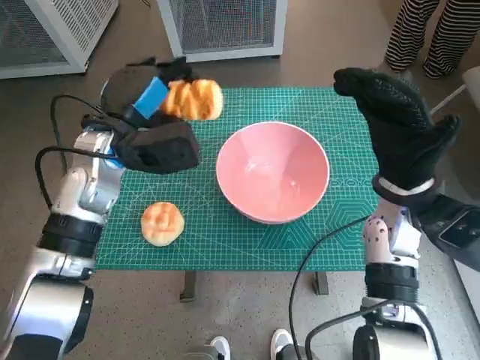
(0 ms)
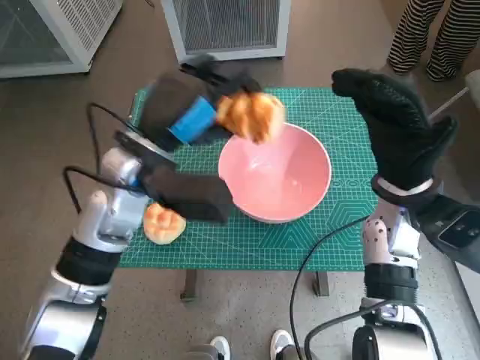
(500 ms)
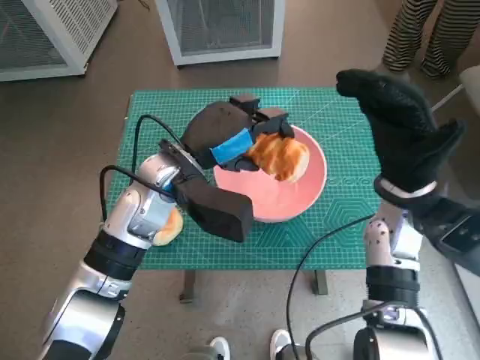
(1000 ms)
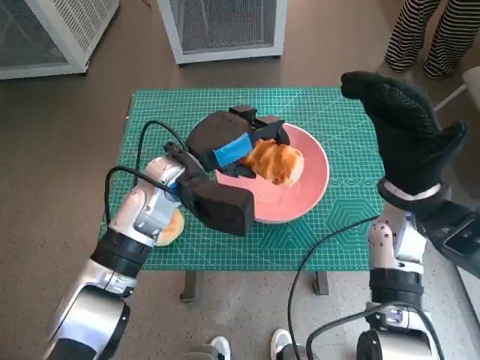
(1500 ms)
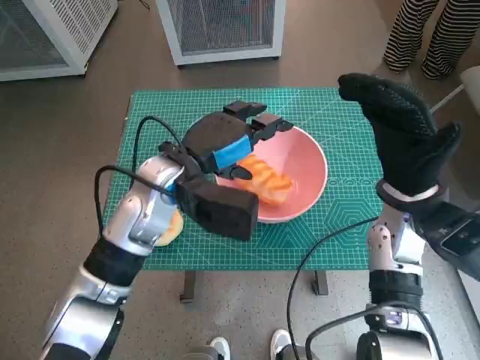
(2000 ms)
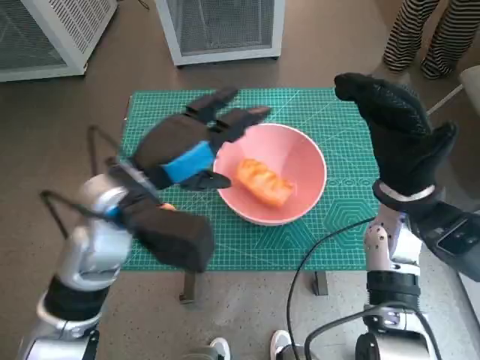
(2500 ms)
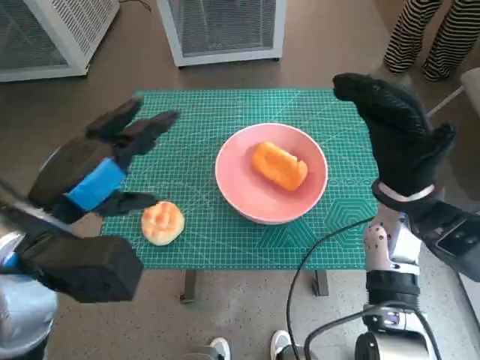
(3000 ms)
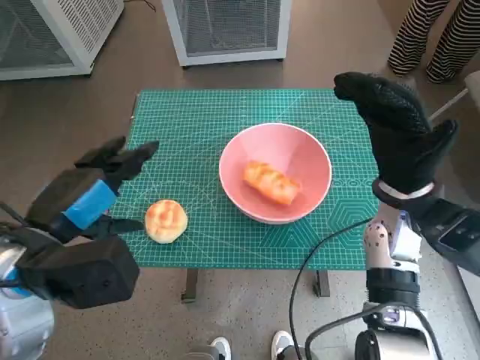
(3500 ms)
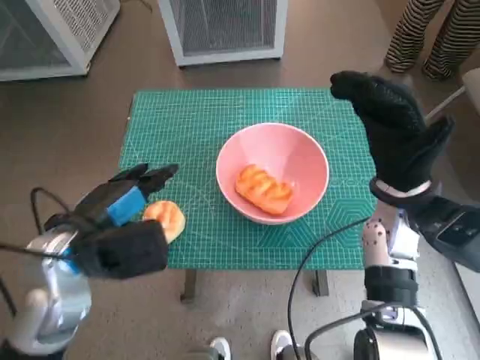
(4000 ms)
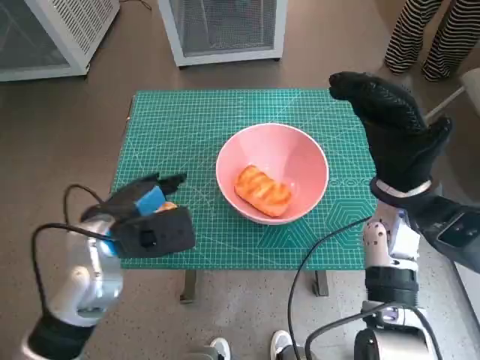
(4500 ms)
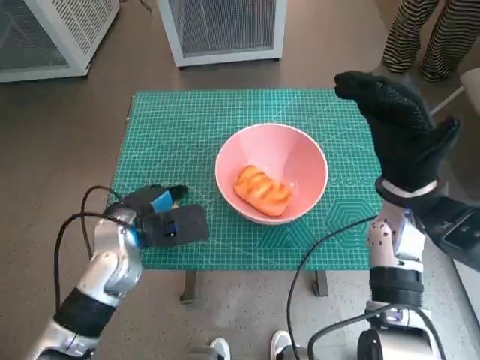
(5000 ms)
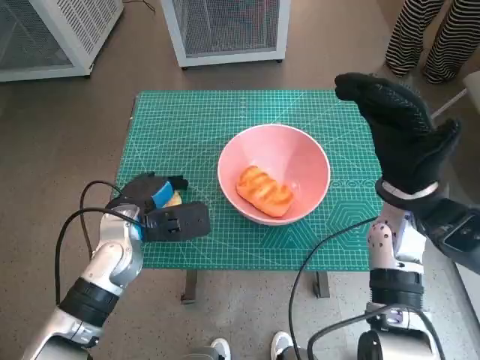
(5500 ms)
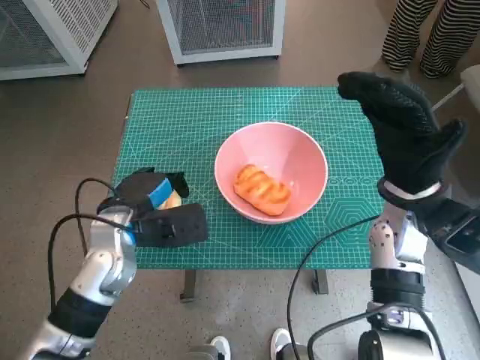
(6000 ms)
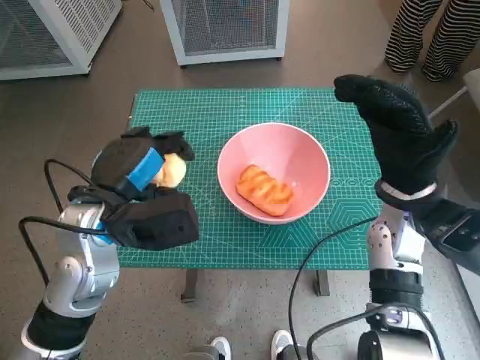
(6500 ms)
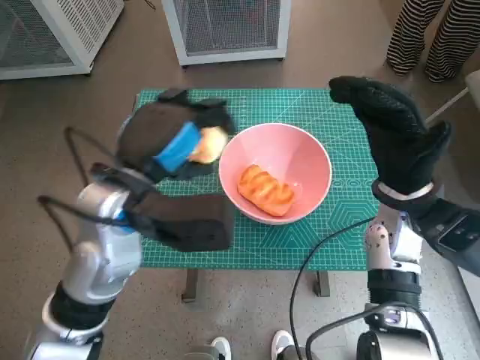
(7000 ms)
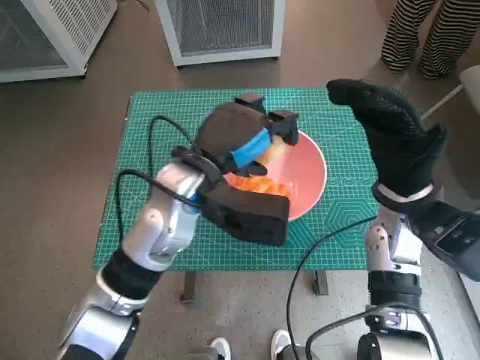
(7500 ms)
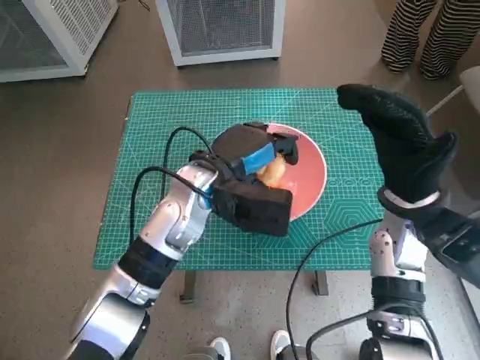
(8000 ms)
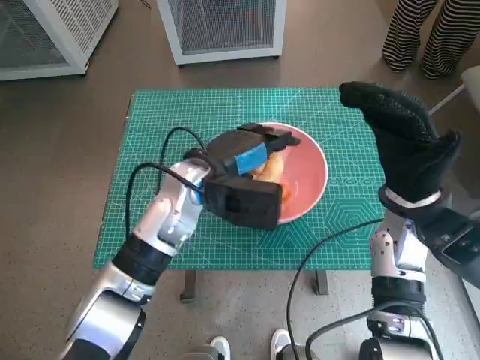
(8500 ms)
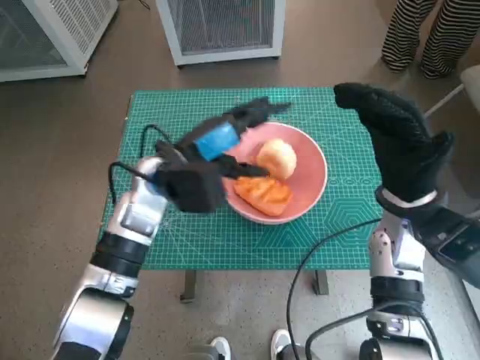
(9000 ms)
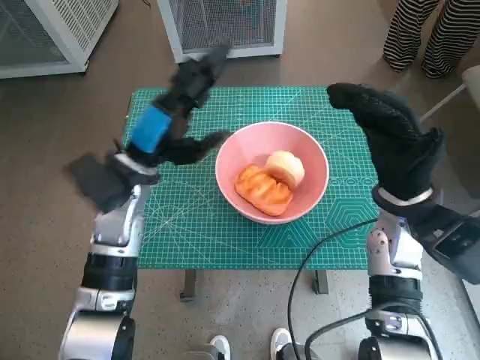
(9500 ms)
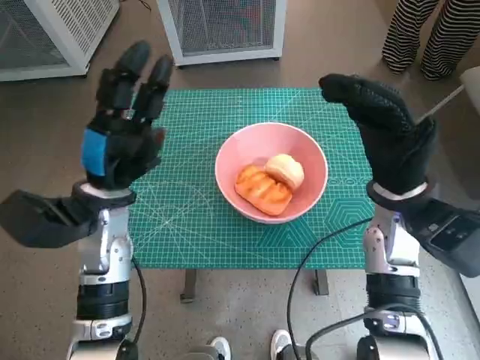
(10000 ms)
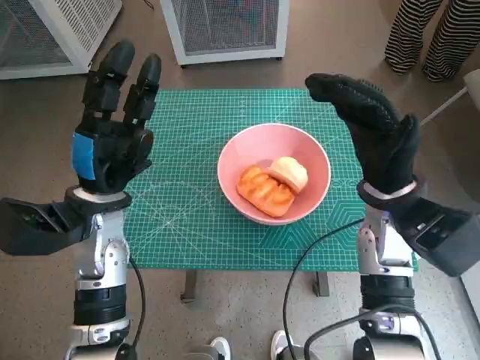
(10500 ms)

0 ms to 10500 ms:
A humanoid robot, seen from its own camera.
Task of the whole recording: Push the bowl into the center of the table and put the bread into the bowl.
Step, 2000 ms to 5000 ms: Grasp the round bread with left hand.
Step, 5500 ms to 8500 ms: Place the round bread in pink bowl with left hand.
0 ms to 2000 ms: The left hand goes some 10 cm to the right.
2000 ms to 4000 ms: The left hand is displaced to the left and backward by about 15 cm.
4000 ms to 6500 ms: The left hand moves approximately 10 cm downward and comes back.
6500 ms to 8500 ms: The left hand moves to the right and forward, approximately 10 cm.
8500 ms to 10500 ms: The left hand travels to the left by roughly 10 cm.

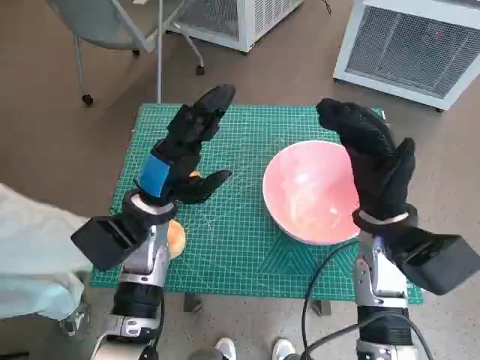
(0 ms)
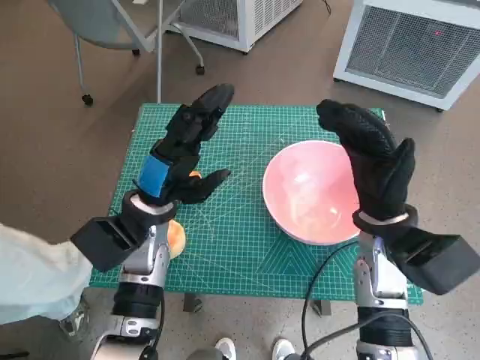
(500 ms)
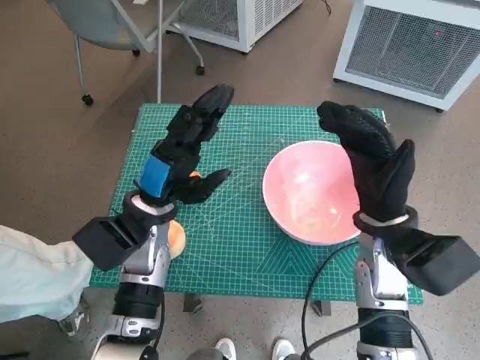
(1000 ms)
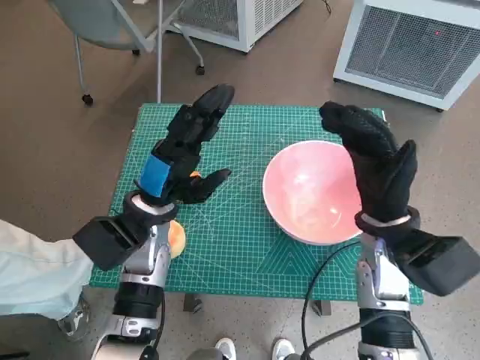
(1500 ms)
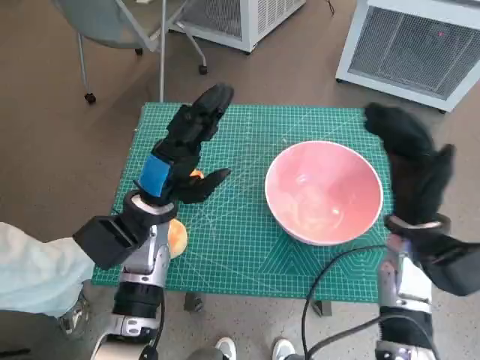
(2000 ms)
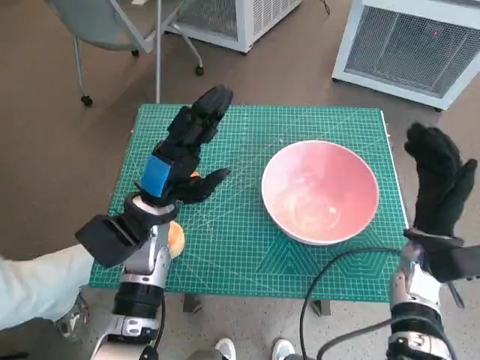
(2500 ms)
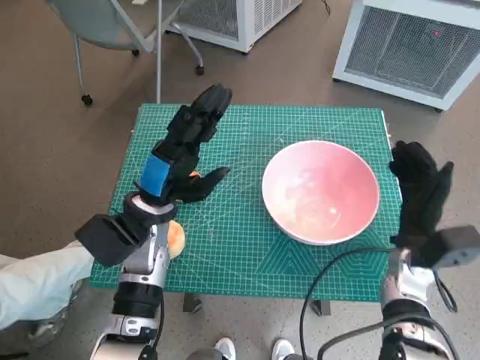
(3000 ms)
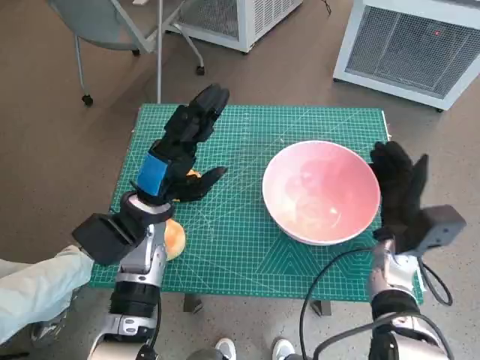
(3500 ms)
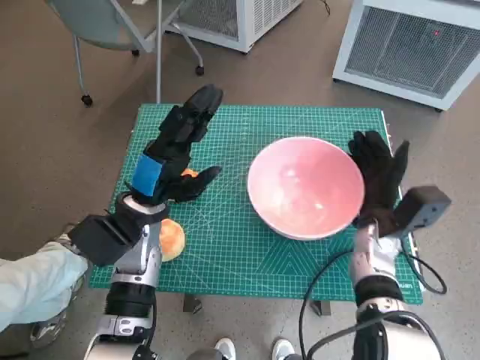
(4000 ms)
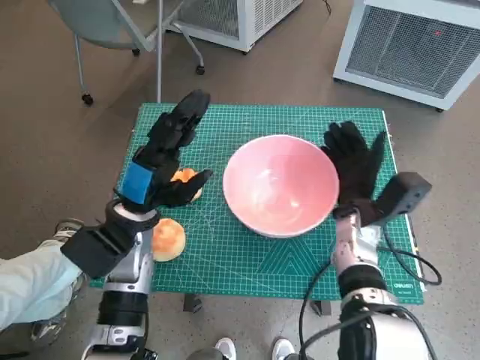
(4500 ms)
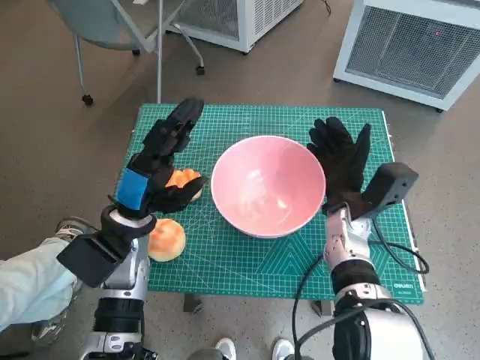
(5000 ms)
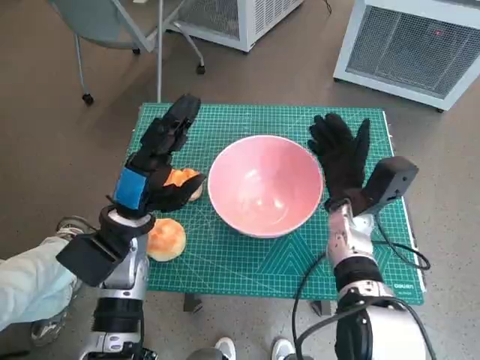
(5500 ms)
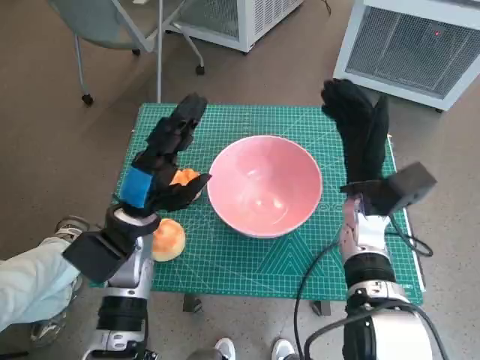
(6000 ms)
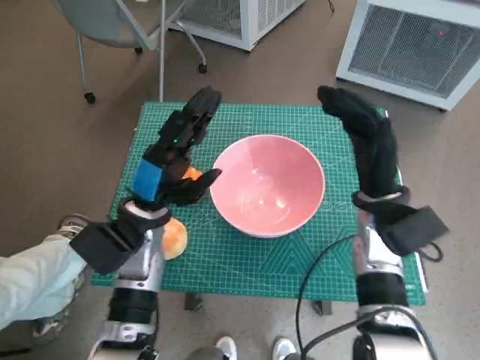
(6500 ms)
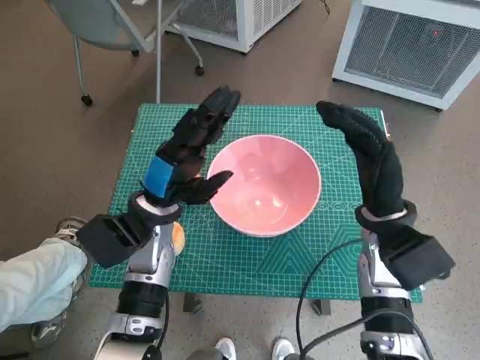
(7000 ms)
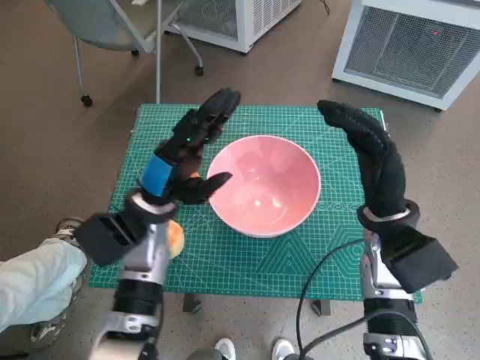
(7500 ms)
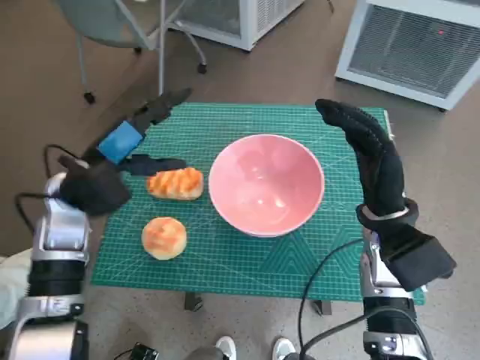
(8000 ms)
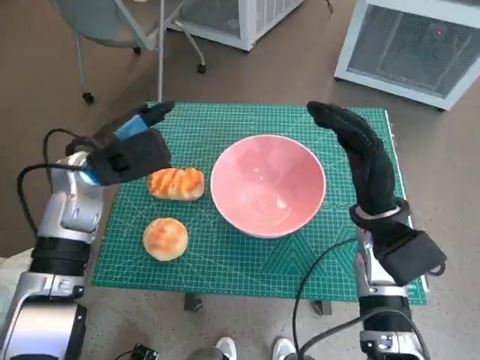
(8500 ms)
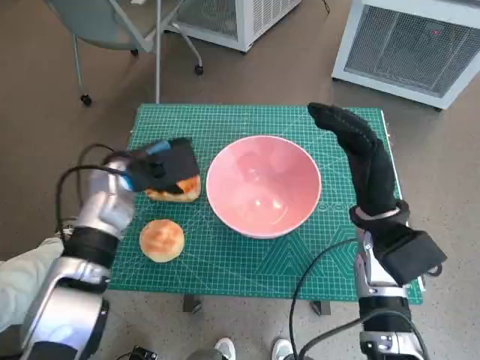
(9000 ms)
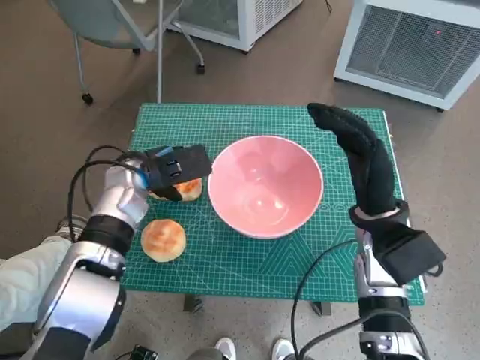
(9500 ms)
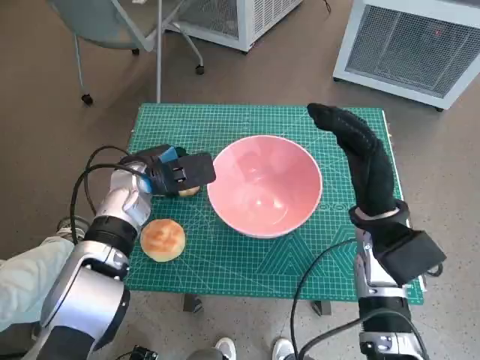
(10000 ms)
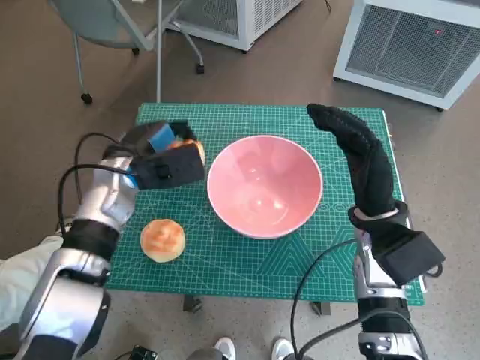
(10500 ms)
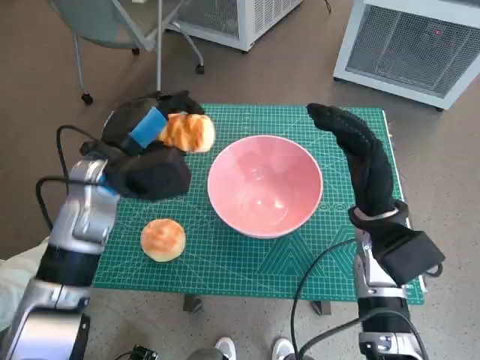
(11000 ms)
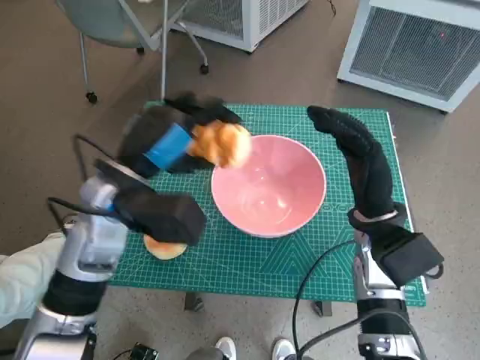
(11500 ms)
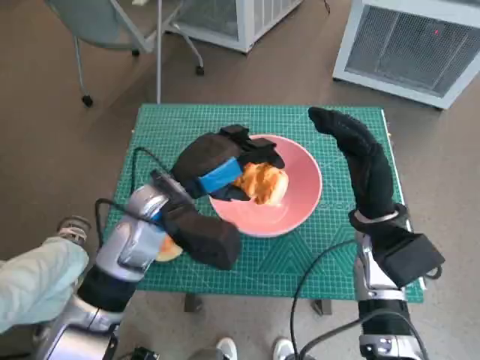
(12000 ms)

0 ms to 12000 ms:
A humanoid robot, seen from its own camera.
Task of the whole recording: Push the bowl into the center of the table and put the bread into the bowl.
Step, 0 ms to 5500 ms: Move the pink bowl to the center of table with right hand.
Step, 6000 ms to 9500 ms: Grasp the long bread with left hand.
2000 ms to 4000 ms: The right hand heads downward, covering approximately 5 cm.
4000 ms to 6000 ms: The right hand travels upward by roughly 5 cm.
6000 ms to 8000 ms: The right hand ends up about 5 cm from where it was. The left hand travels upward and to the left by approximately 10 cm.
8000 ms to 10000 ms: The left hand heads downward and forward, covering approximately 10 cm.
10000 ms to 12000 ms: The left hand heads backward, to the right and upward, covering about 10 cm.

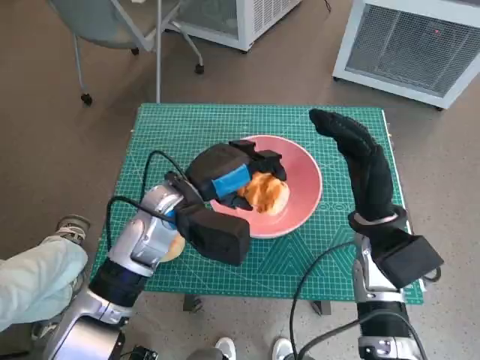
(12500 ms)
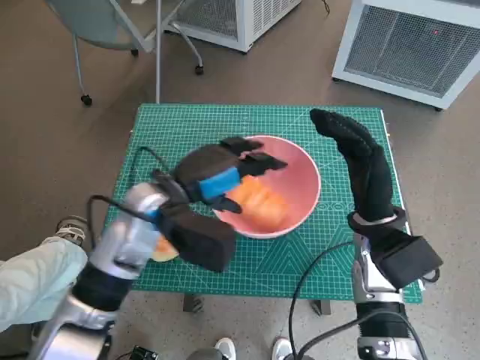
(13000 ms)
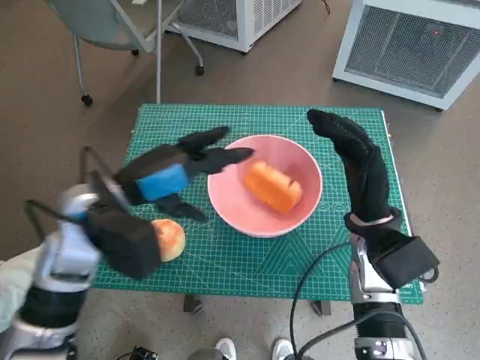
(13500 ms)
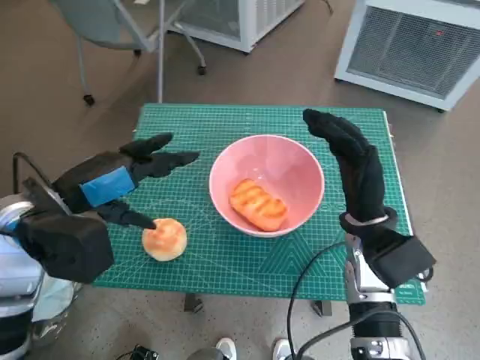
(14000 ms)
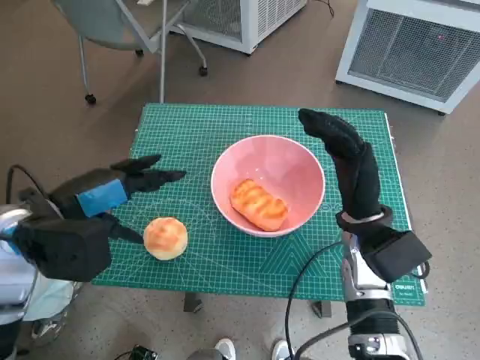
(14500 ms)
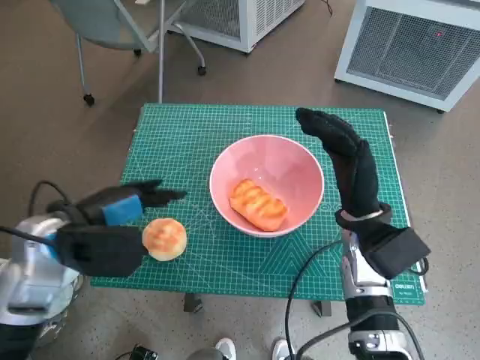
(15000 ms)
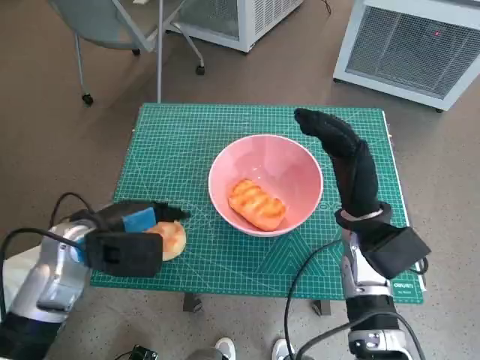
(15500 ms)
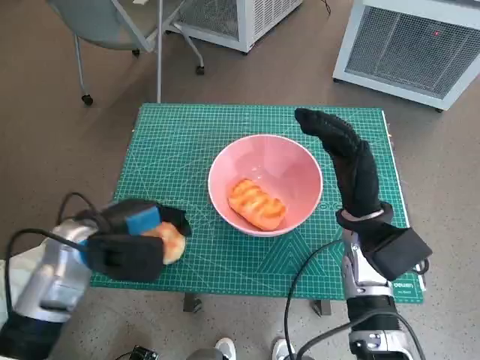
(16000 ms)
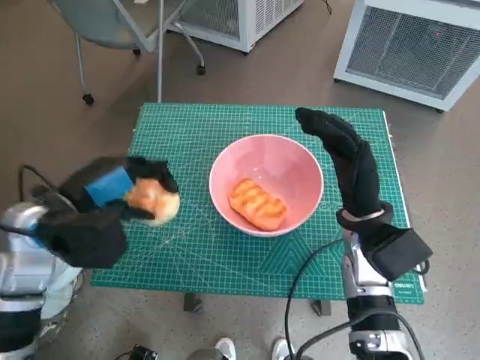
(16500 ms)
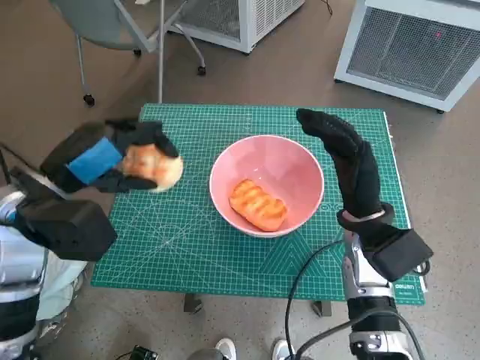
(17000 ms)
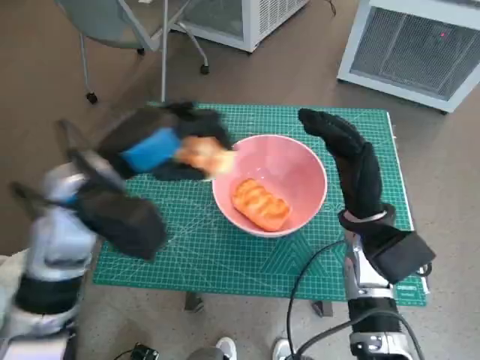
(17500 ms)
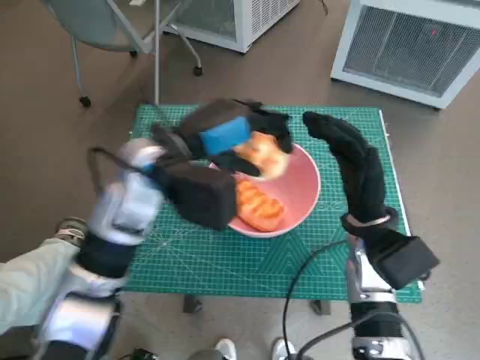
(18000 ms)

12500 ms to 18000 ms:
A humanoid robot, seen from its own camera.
Task of the whole recording: Push the bowl into the center of the table and put the bread into the bowl.
Step, 13500 ms to 15500 ms: Grasp the round bread with left hand.
12500 ms to 14500 ms: The left hand shifts approximately 15 cm to the left, backward and upward.
14500 ms to 16000 ms: The left hand is displaced downward by approximately 5 cm.
16000 ms to 18000 ms: The left hand moves to the right, upward and forward, approximately 15 cm.
